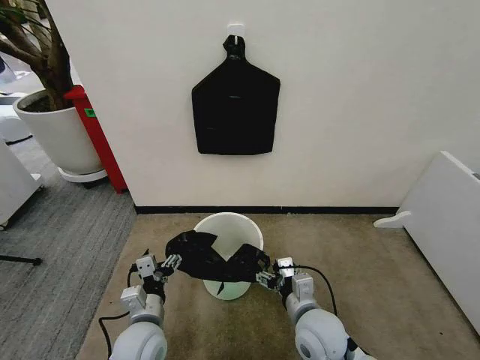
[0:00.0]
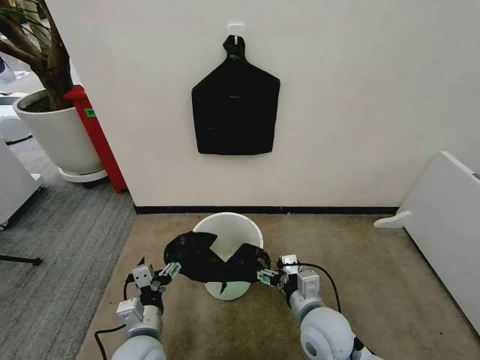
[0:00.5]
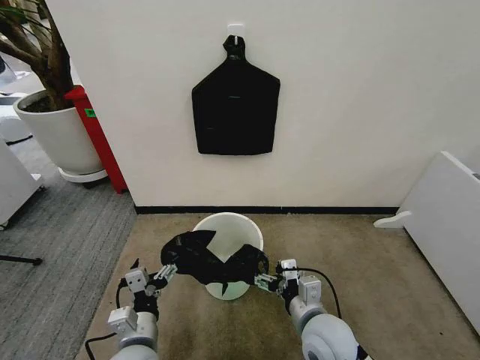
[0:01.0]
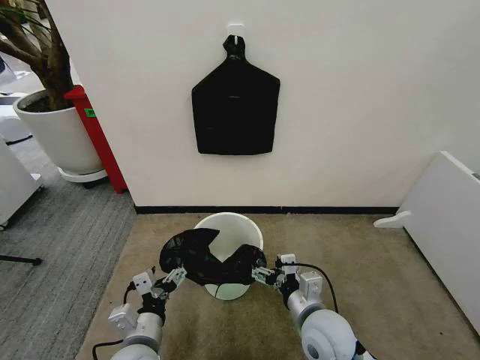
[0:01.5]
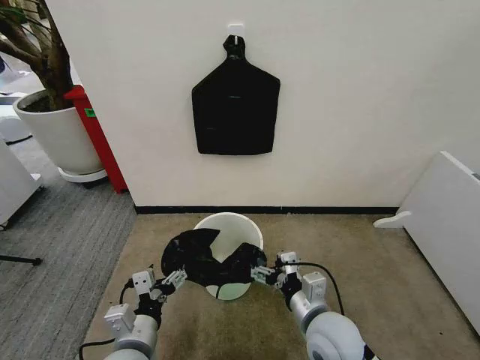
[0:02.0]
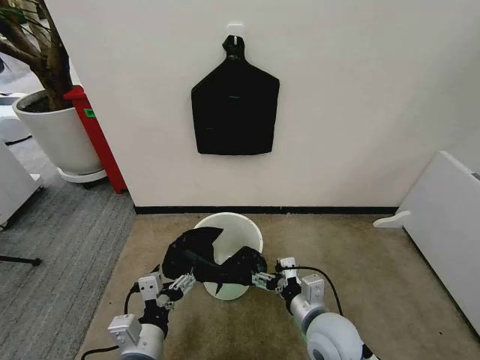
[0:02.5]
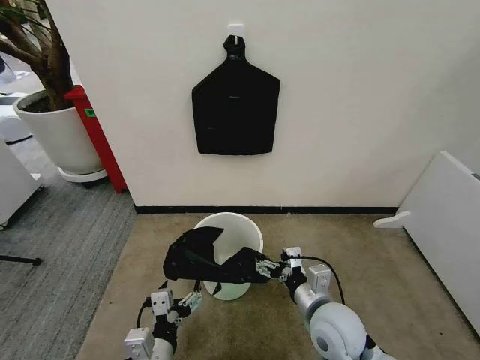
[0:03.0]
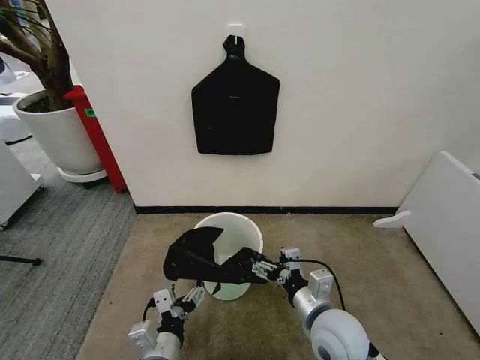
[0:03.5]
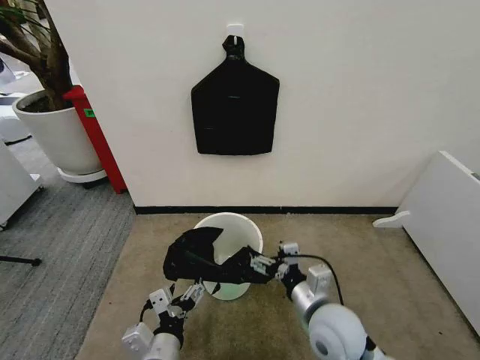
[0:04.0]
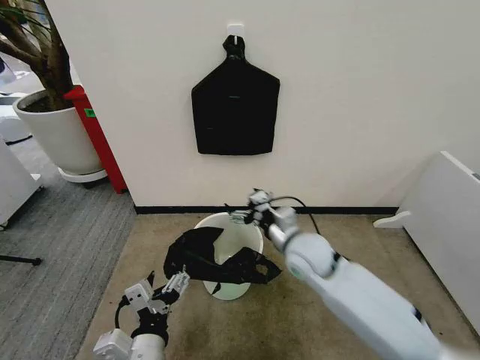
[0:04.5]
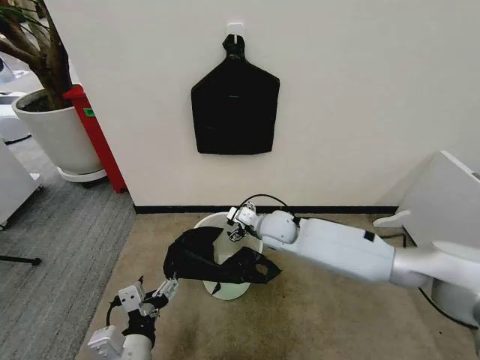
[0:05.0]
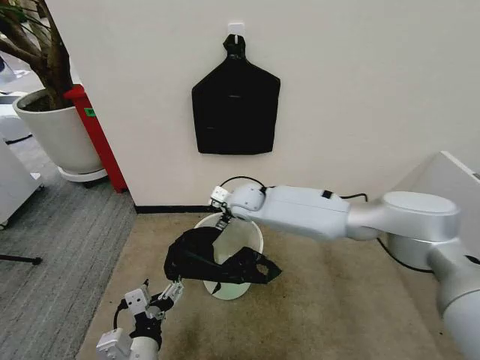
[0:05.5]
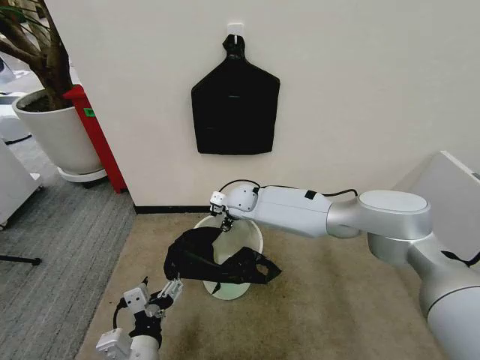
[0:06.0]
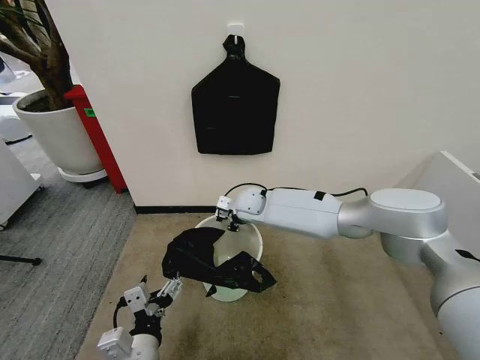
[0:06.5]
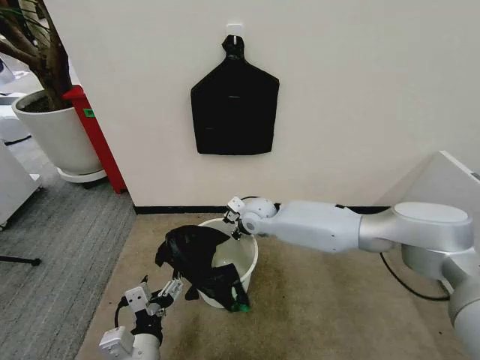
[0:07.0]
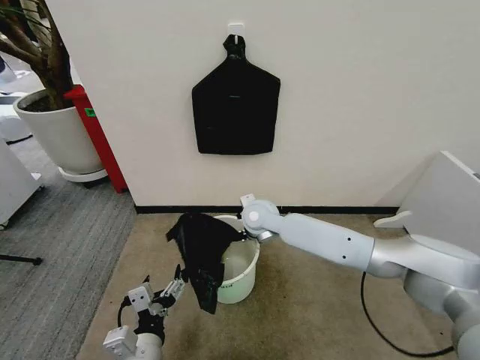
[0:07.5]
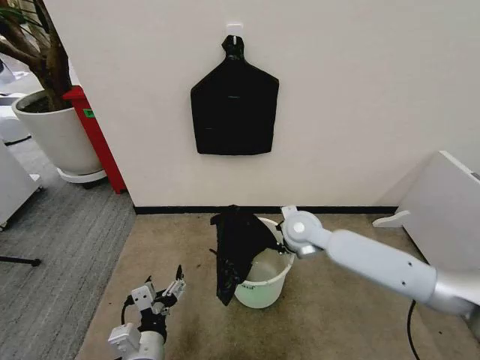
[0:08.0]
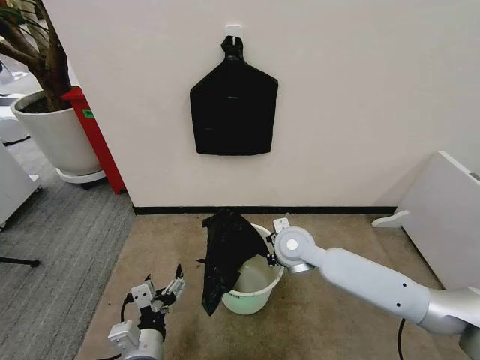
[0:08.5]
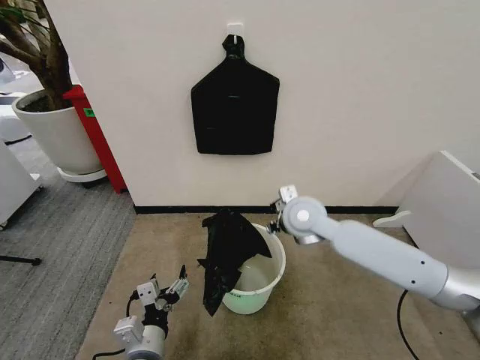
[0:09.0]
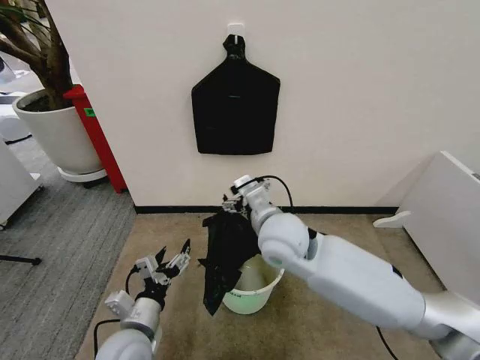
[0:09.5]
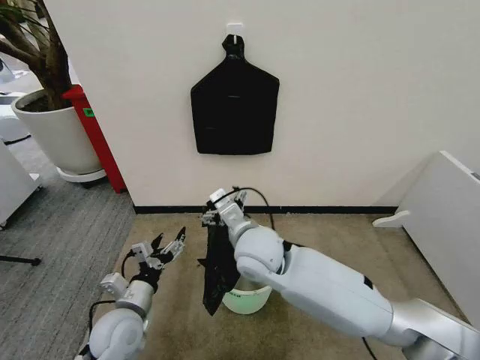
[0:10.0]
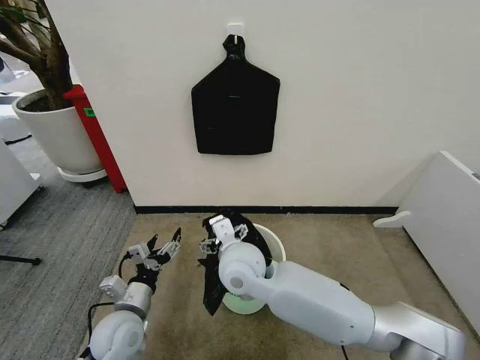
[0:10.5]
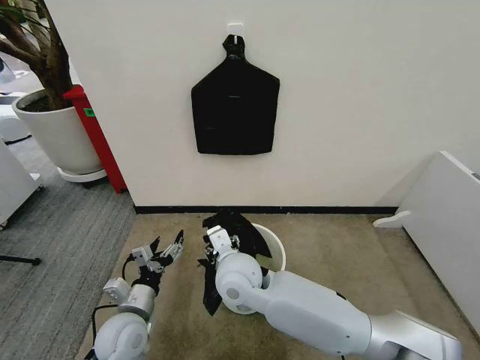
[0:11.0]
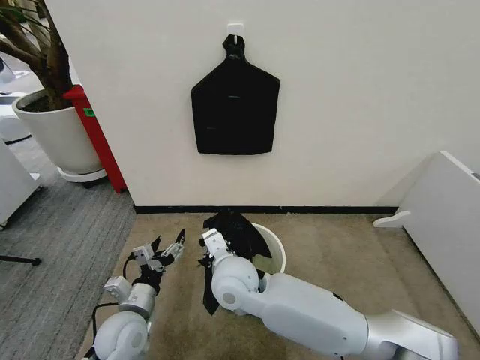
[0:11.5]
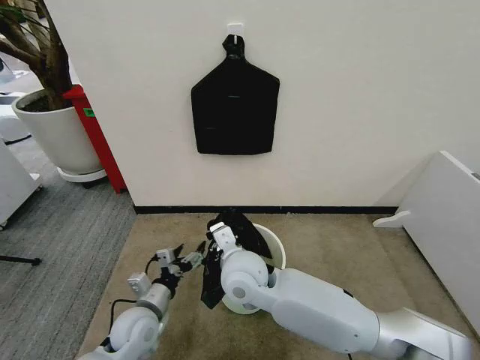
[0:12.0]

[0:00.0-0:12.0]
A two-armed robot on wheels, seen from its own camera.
Task of the whole recording: Place the garbage bag over the trash bin.
0:00.0 to 0:02.0: The left gripper heads backward and upward, covering about 10 cm.
0:02.0 to 0:04.0: The left gripper shifts by about 5 cm.
0:04.0 to 0:06.0: The right gripper shifts approximately 35 cm forward and to the left.
0:06.0 to 0:08.0: The right gripper moves to the right and backward, about 20 cm, and closes its fingers.
0:08.0 to 0:10.0: The right gripper is displaced to the left, backward and upward by approximately 15 cm, and opens up. Meanwhile the left gripper goes approximately 15 cm forward and to the left.
0:10.0 to 0:12.0: The right gripper changes place by about 5 cm, and closes its fingers.

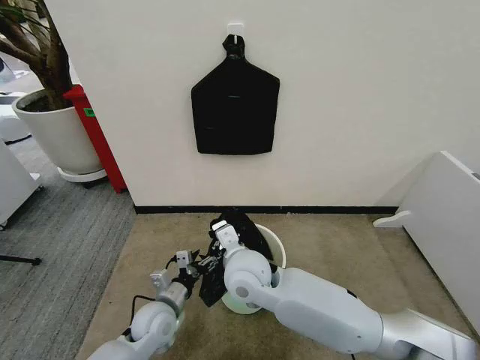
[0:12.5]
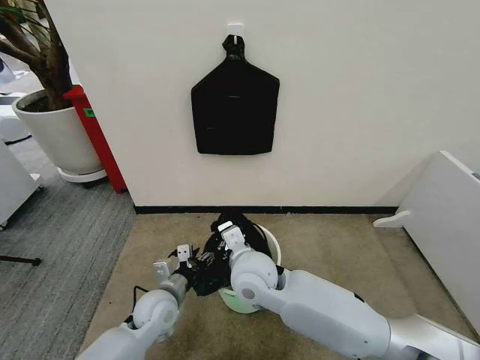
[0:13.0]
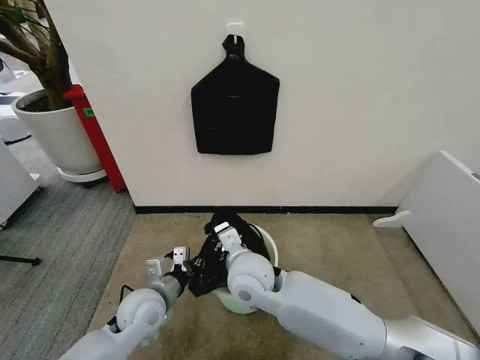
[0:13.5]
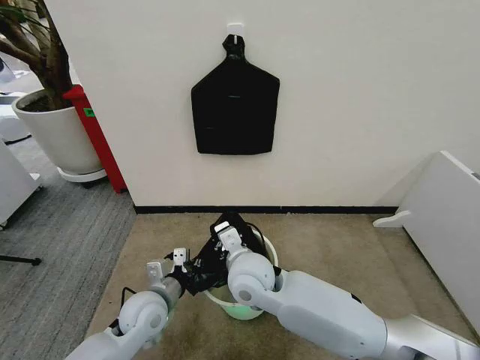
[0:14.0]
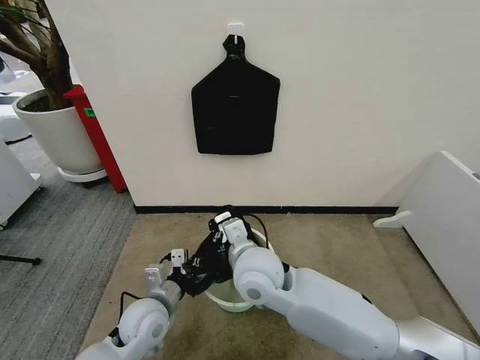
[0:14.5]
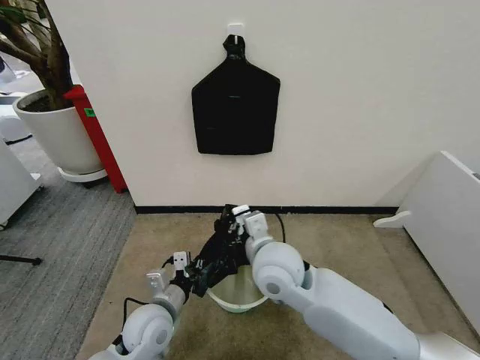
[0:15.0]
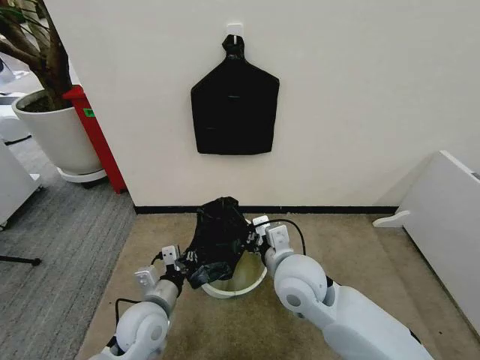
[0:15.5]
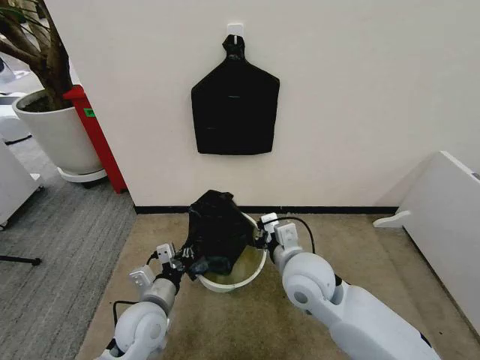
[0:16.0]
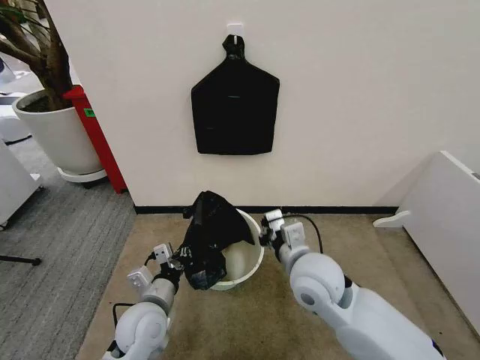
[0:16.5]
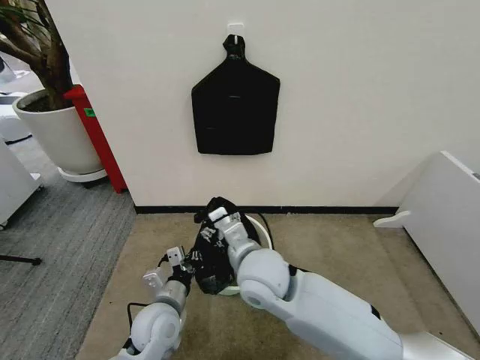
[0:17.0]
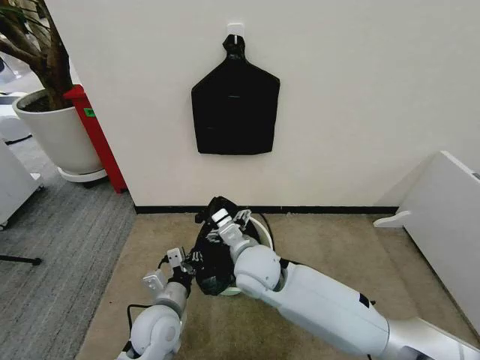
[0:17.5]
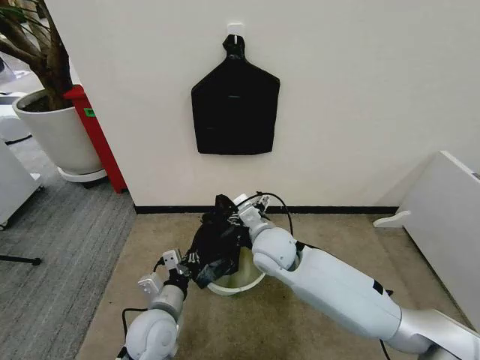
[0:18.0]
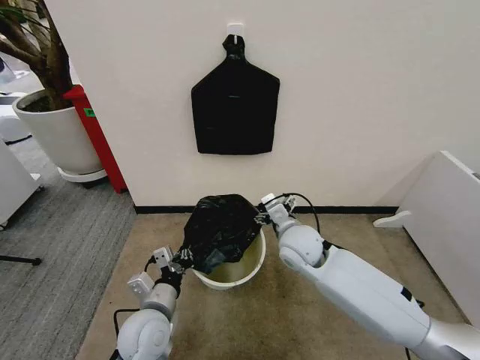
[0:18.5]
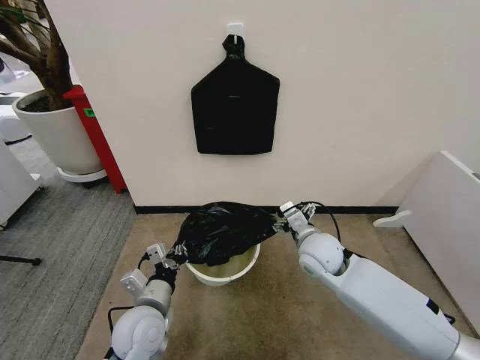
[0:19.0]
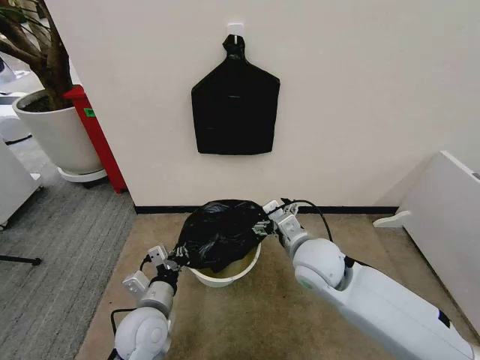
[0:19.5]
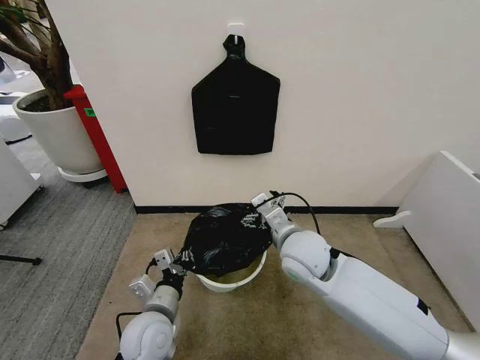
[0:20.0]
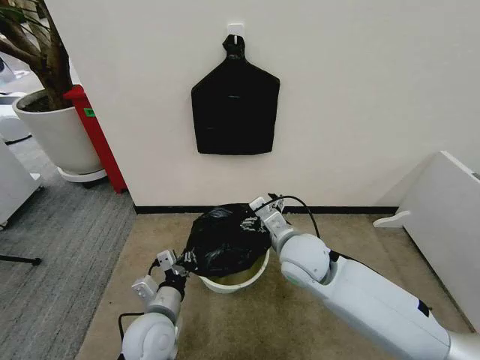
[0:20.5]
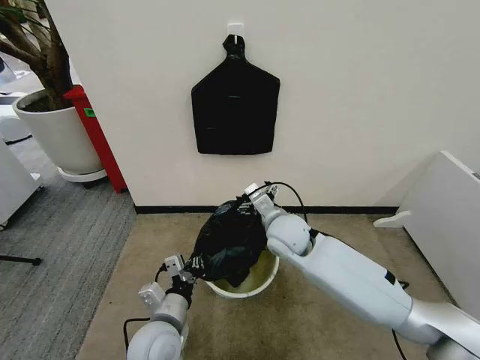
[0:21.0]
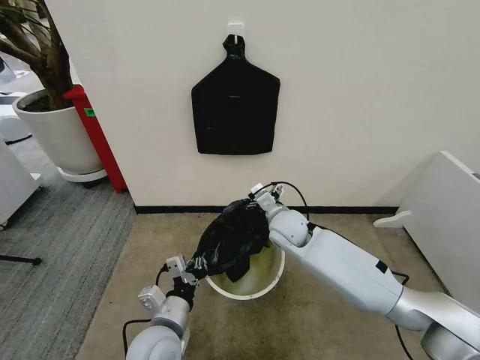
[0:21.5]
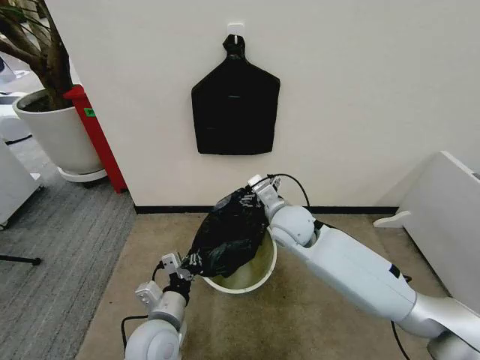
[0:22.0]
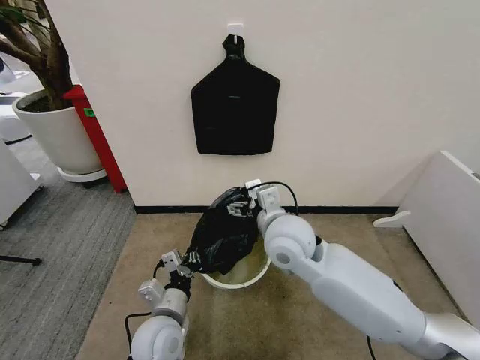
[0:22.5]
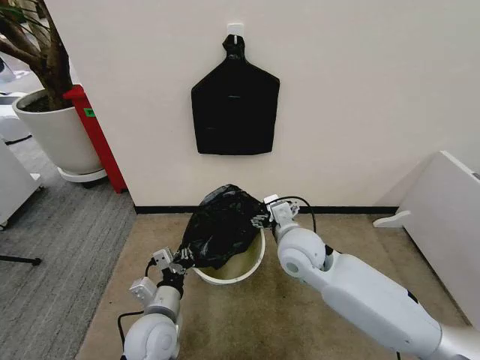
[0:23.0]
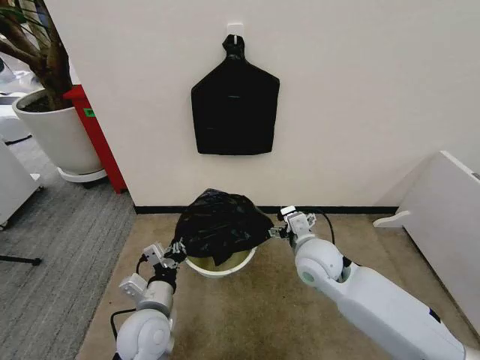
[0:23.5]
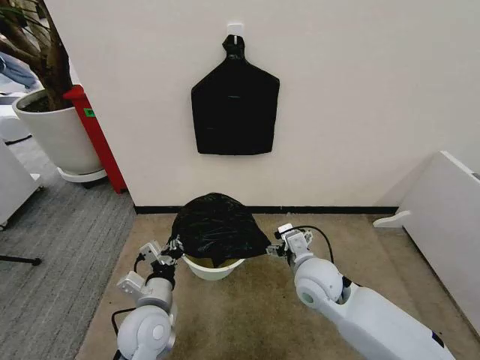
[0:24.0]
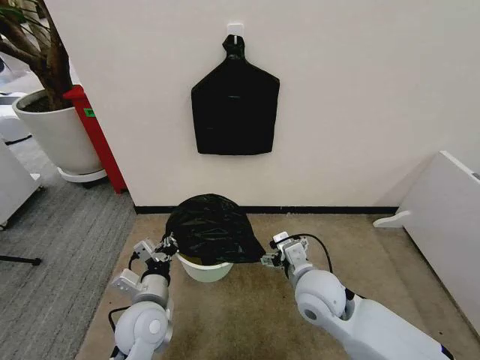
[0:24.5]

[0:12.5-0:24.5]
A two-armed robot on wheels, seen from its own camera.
Task of the whole recording: Place the garbage bag over the trash bin.
0:12.5 to 0:14.5: The left gripper travels upward by roughly 5 cm, and closes its fingers.
0:14.5 to 0:16.5: The right gripper is displaced to the right by approximately 10 cm.
0:16.5 to 0:18.5: The right gripper is displaced forward by roughly 10 cm, travels to the left and back again, approximately 10 cm each way, and opens.
0:18.5 to 0:20.5: The right gripper shifts by about 5 cm.
0:20.5 to 0:22.5: The right gripper moves roughly 10 cm forward and comes back.
0:22.5 to 0:24.5: The right gripper heads downward, to the right and backward, covering roughly 15 cm.

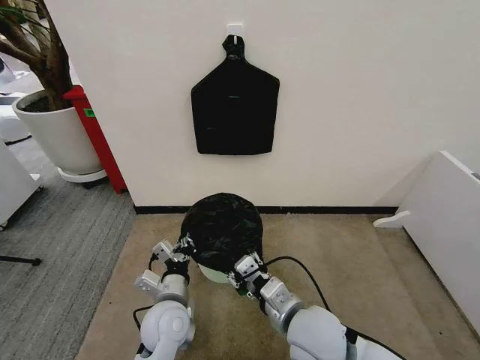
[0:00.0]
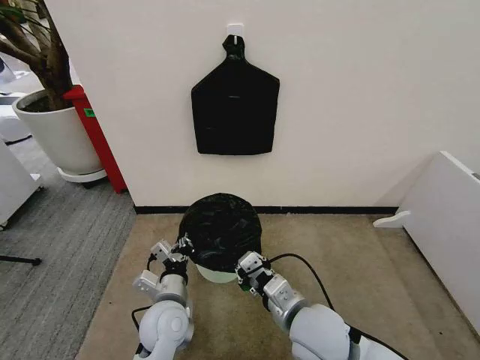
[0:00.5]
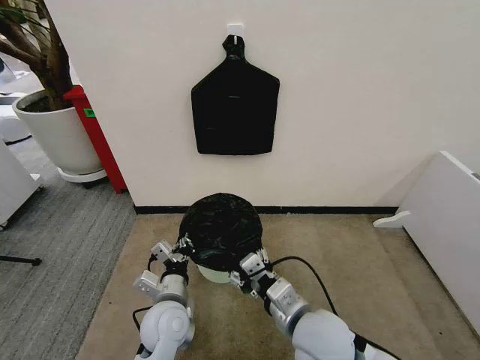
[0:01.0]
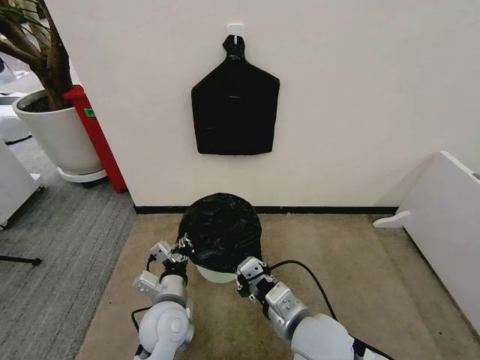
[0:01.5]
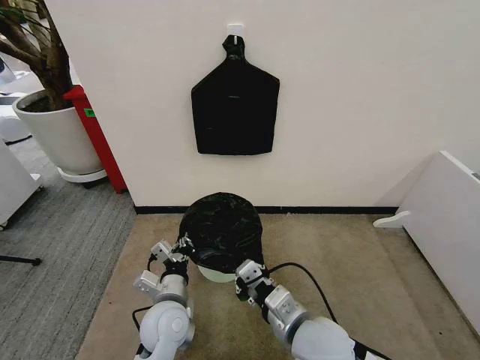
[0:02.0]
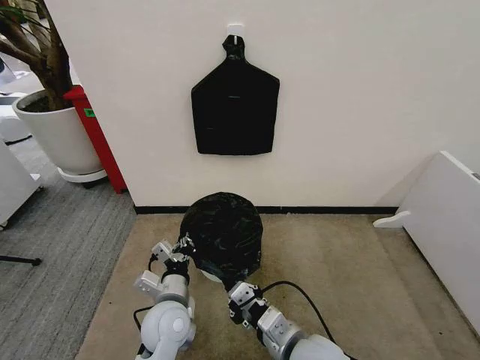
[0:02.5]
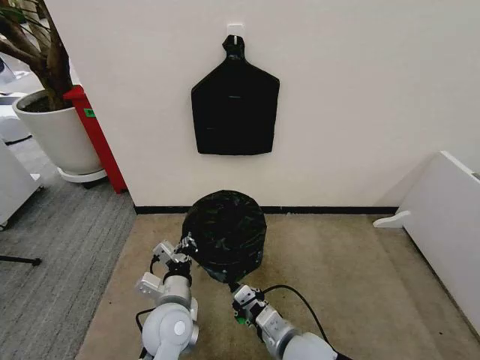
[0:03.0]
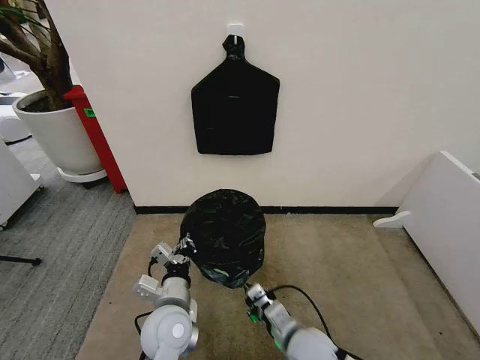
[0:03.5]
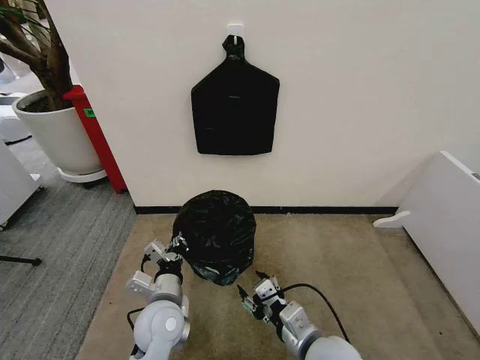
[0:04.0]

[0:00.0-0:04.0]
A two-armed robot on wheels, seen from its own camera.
Task of the whole recording: Place the garbage bag over the trash bin.
0:00.0 to 0:02.0: The right gripper closes its fingers.
0:02.0 to 0:04.0: The right gripper opens its fingers.
